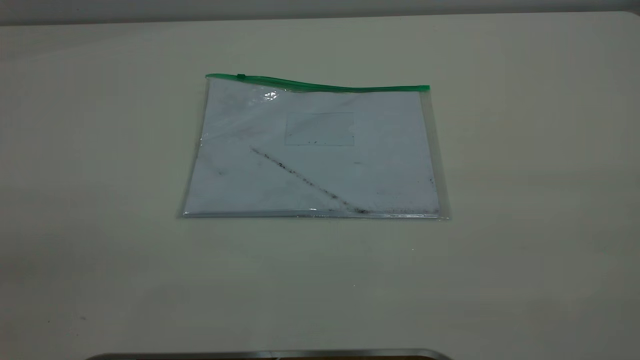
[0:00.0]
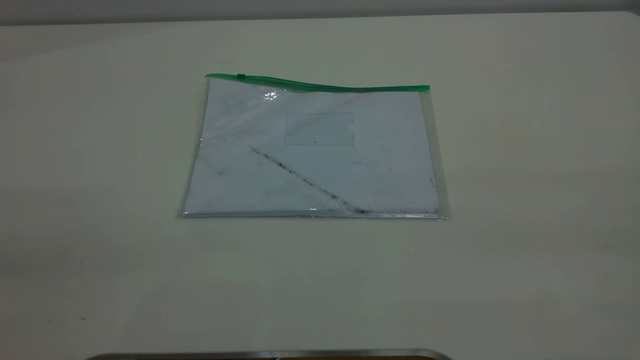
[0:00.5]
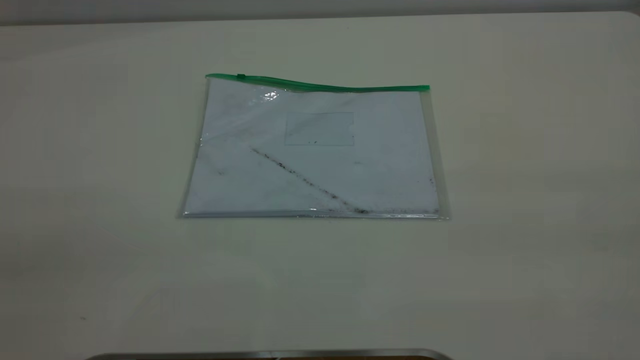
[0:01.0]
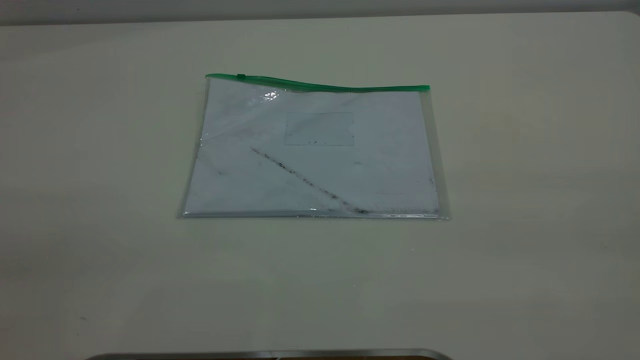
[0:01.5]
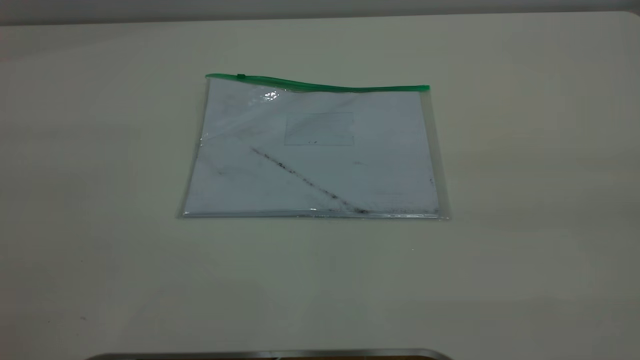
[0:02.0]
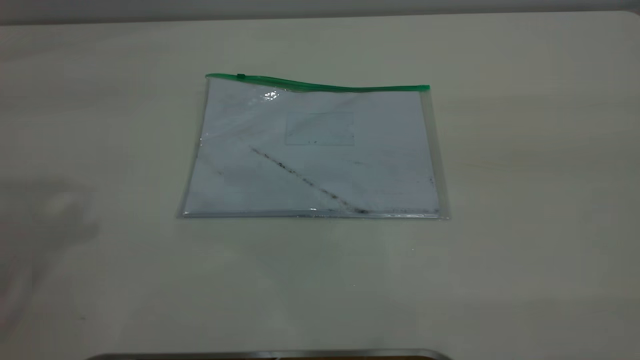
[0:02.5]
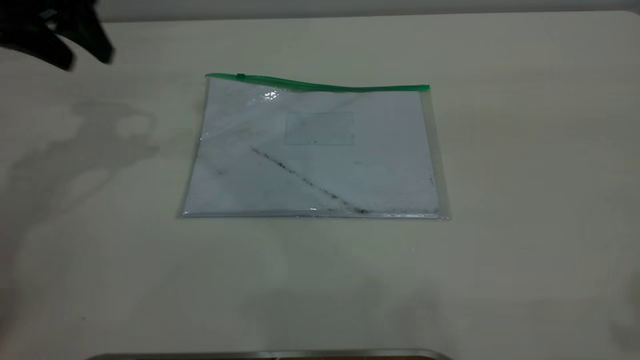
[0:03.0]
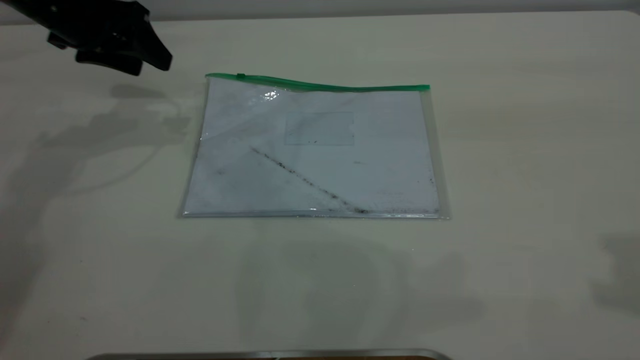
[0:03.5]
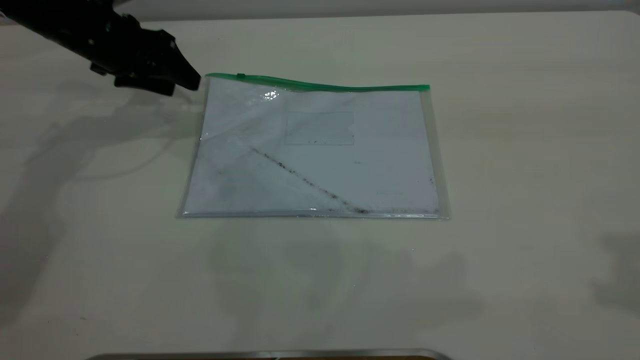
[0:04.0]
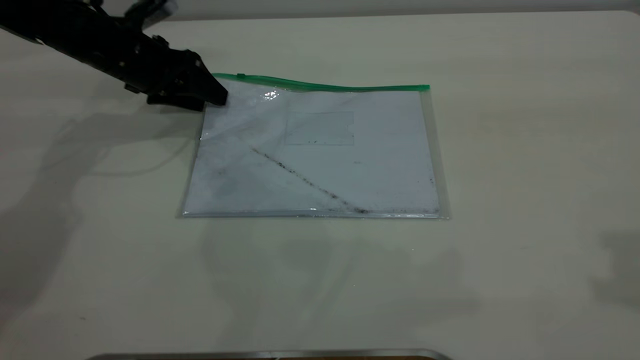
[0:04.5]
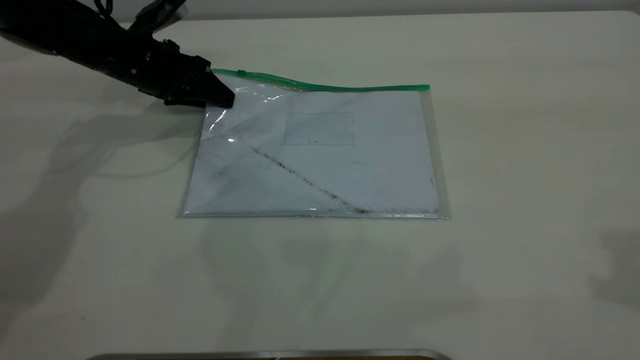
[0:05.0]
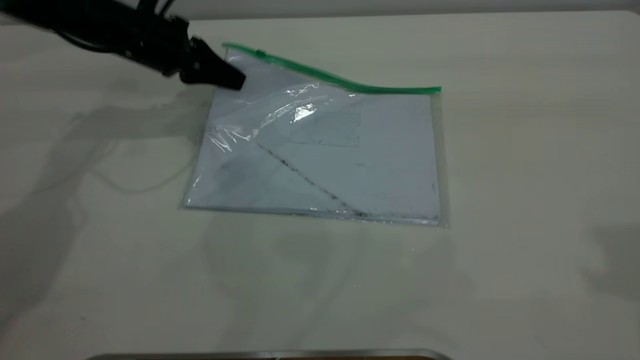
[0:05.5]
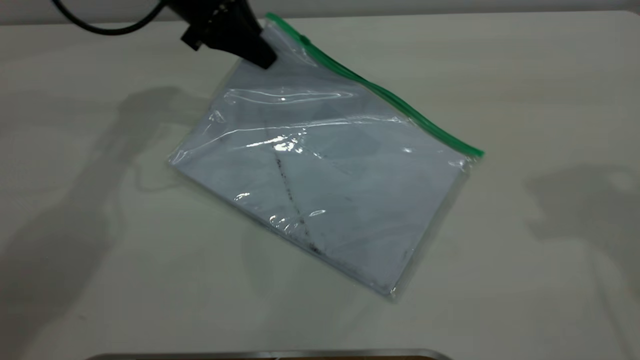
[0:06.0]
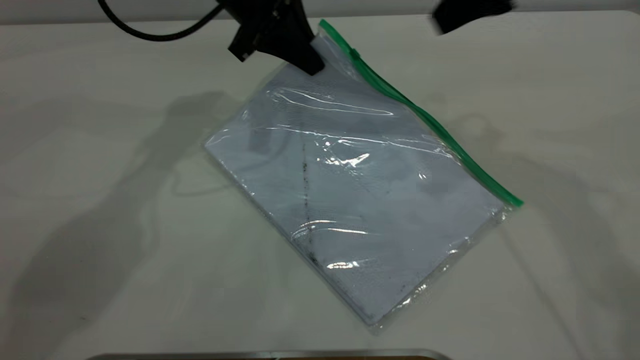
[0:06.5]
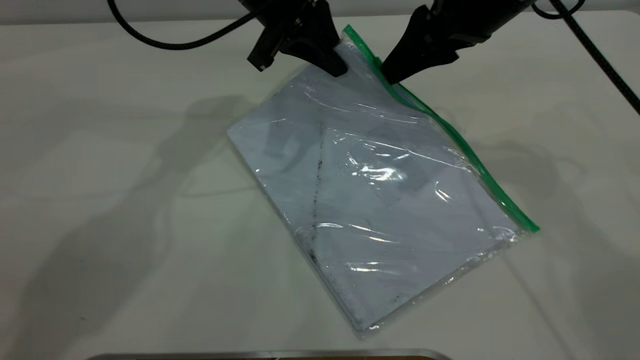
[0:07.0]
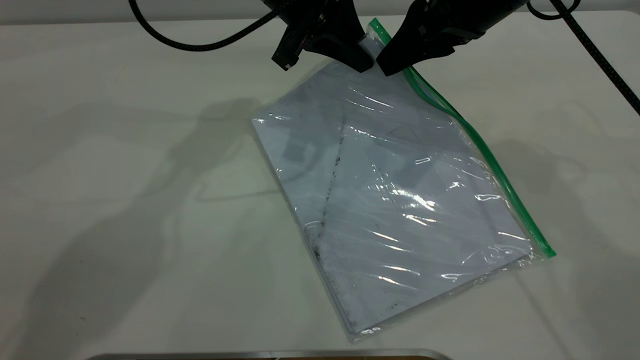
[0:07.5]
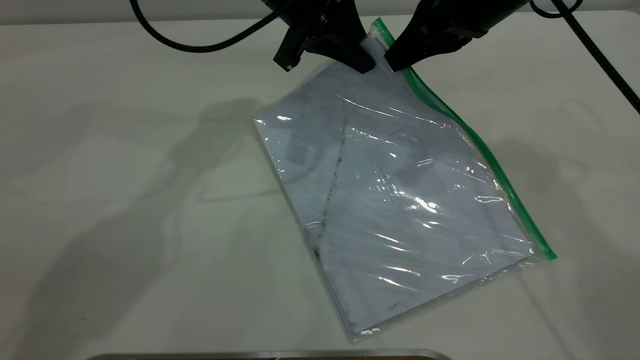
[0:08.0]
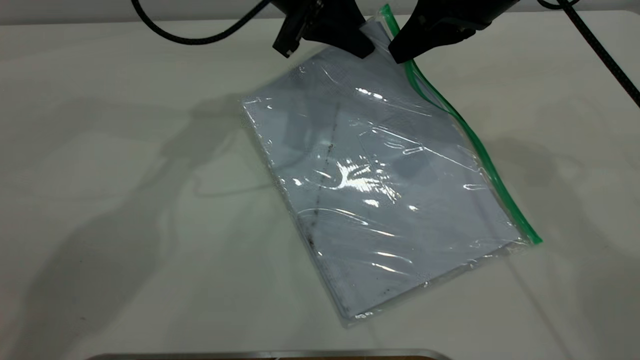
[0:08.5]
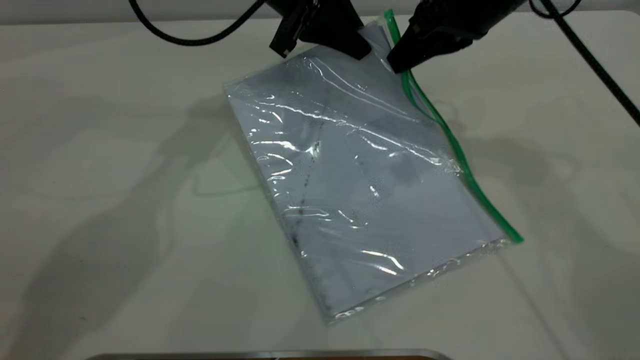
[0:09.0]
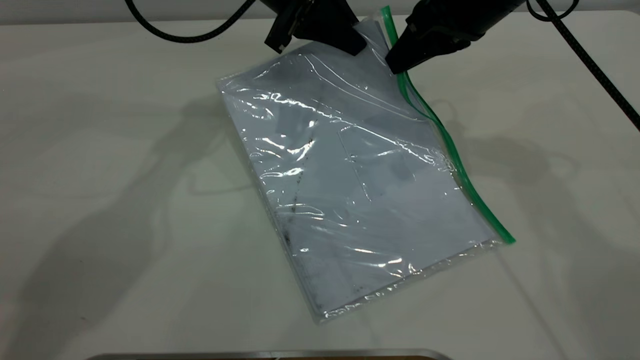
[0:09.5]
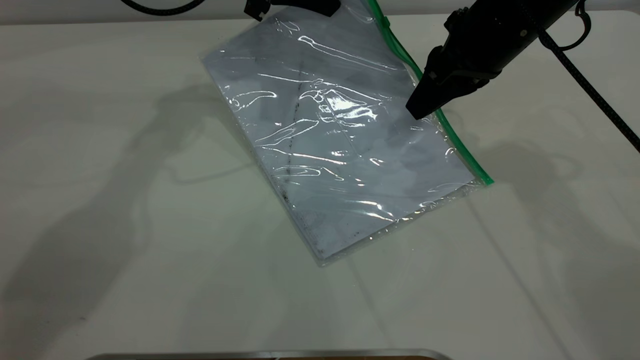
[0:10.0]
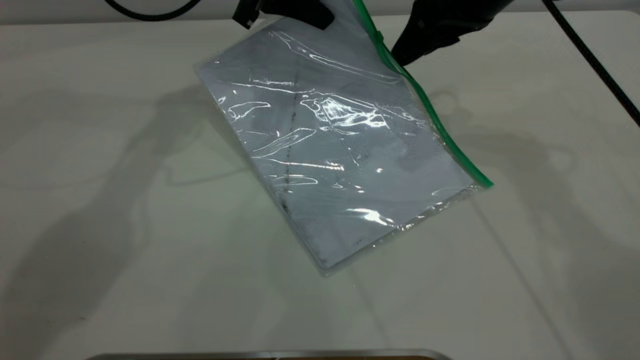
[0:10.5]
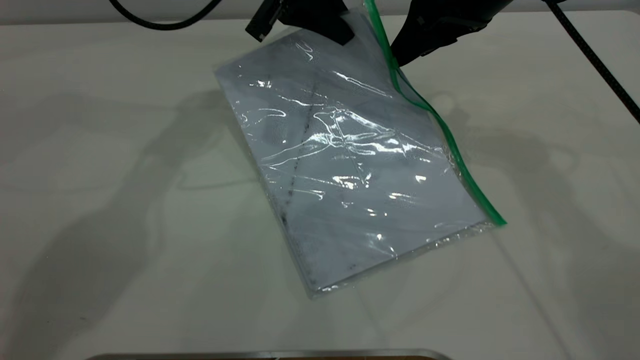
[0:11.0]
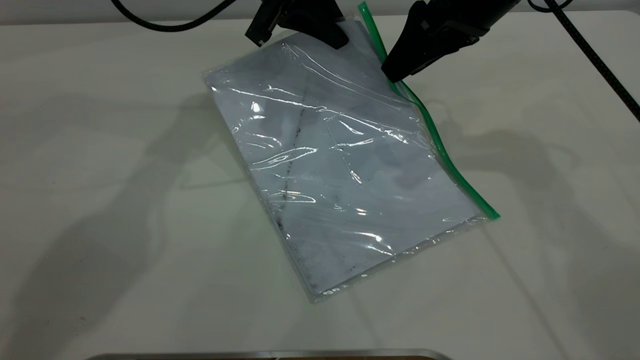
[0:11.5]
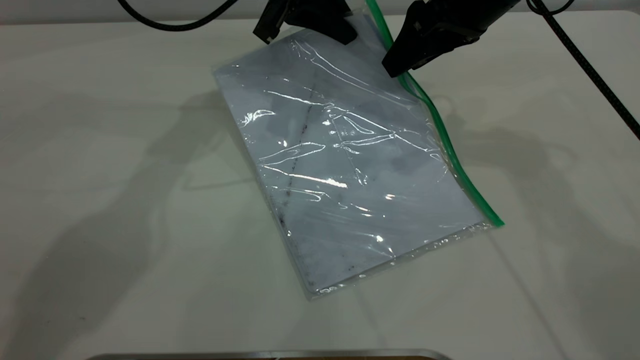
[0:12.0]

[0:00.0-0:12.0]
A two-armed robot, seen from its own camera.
Step, 0:00.0 to 0:05.5: Pick up the transparent plastic bag with the left gripper.
0:02.0 to 0:04.0: The left gripper shifts some 50 cm forward and downward.
0:04.0 to 0:06.0: The right gripper moves forward and downward, roughly 10 cm, while the left gripper is displaced to the right and upward by some 15 cm, and closes its fingers.
0:06.0 to 0:08.0: The right gripper moves downward, to the left and forward, about 20 cm, and closes. The left gripper heads to the right, covering about 10 cm.
0:08.0 to 0:10.0: The left gripper is displaced to the left by some 5 cm.
0:10.0 to 0:12.0: The right gripper opens.

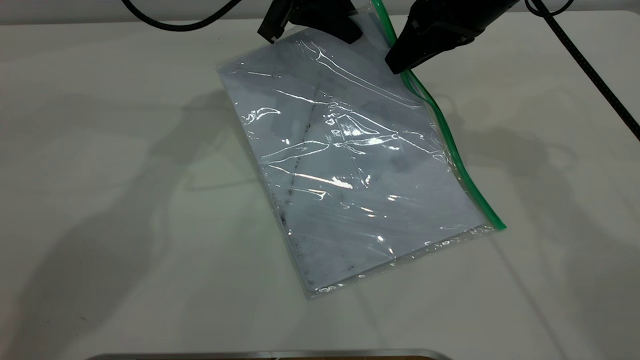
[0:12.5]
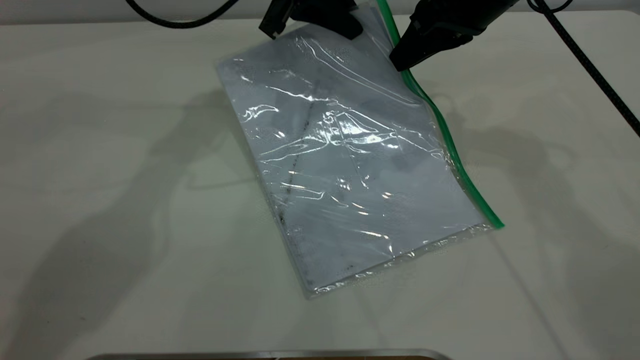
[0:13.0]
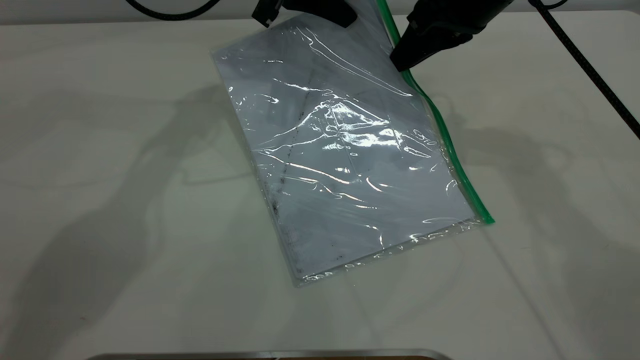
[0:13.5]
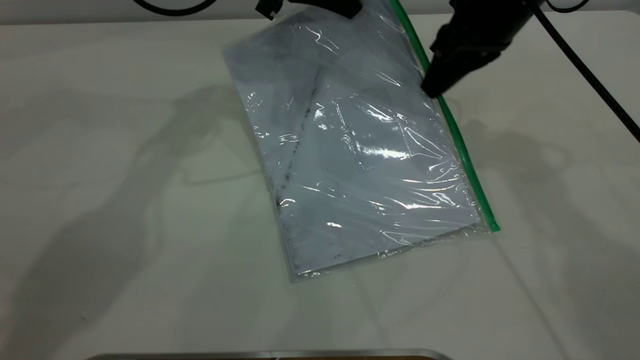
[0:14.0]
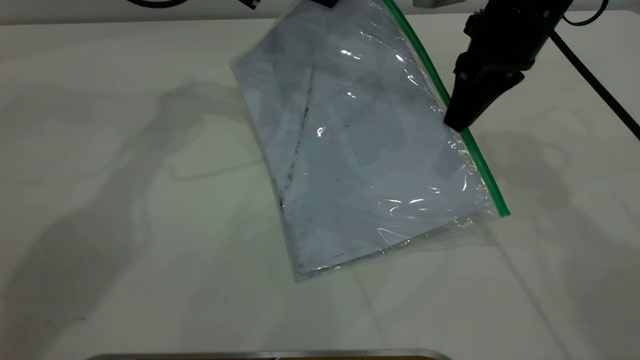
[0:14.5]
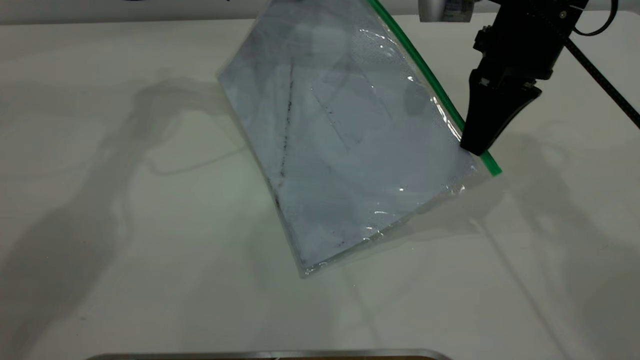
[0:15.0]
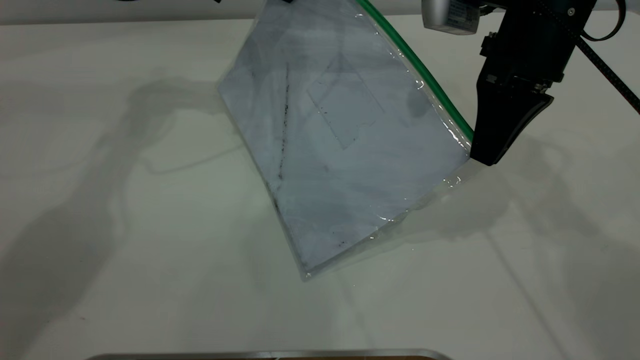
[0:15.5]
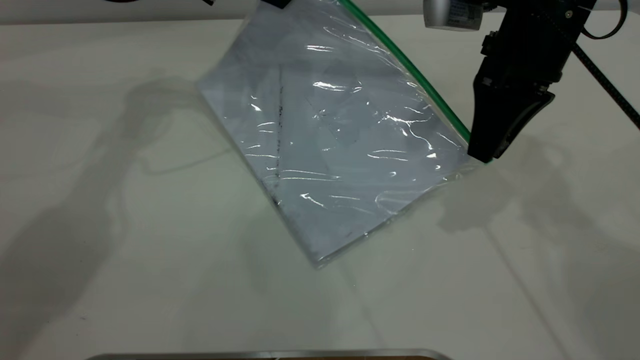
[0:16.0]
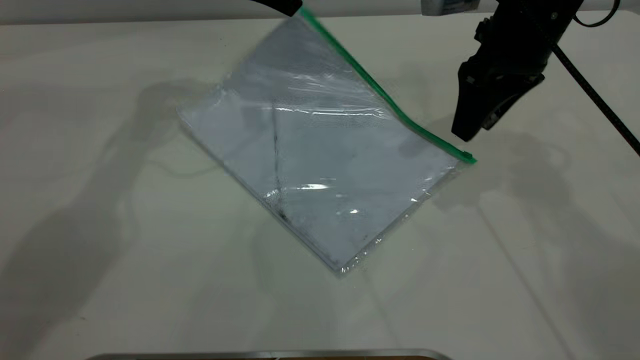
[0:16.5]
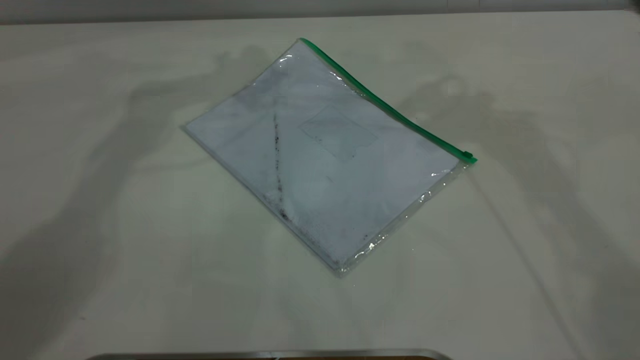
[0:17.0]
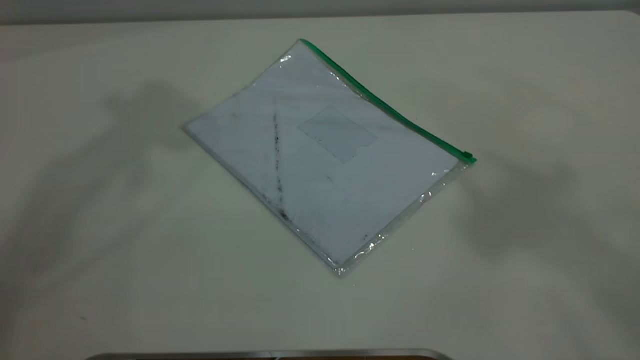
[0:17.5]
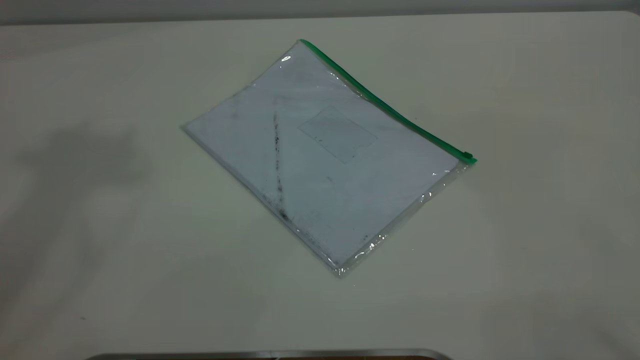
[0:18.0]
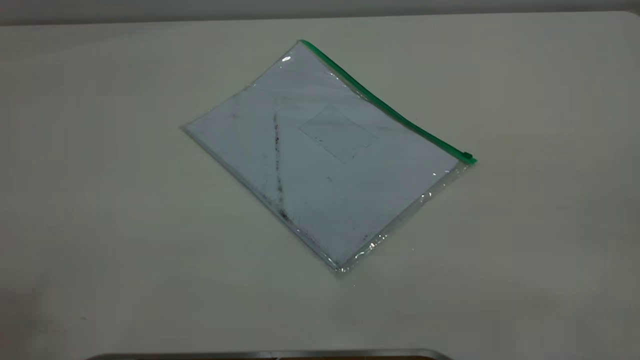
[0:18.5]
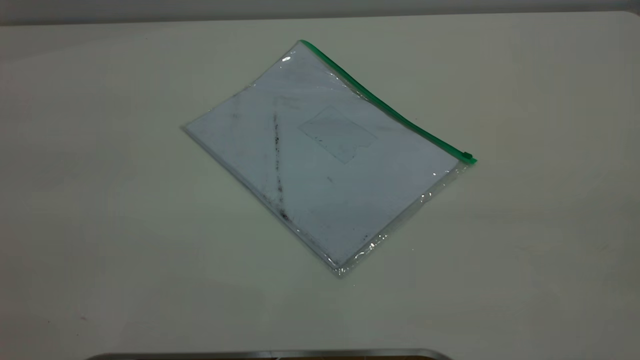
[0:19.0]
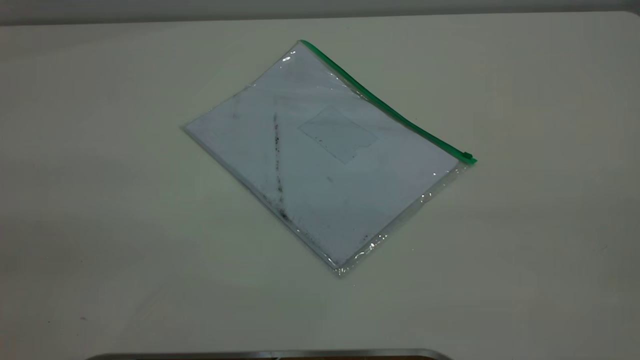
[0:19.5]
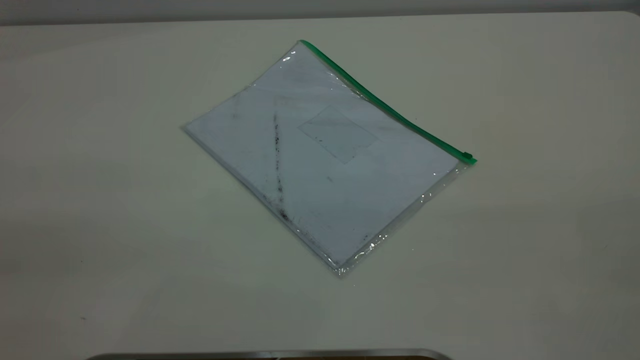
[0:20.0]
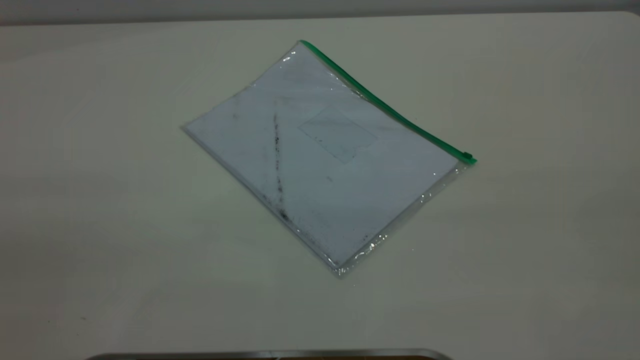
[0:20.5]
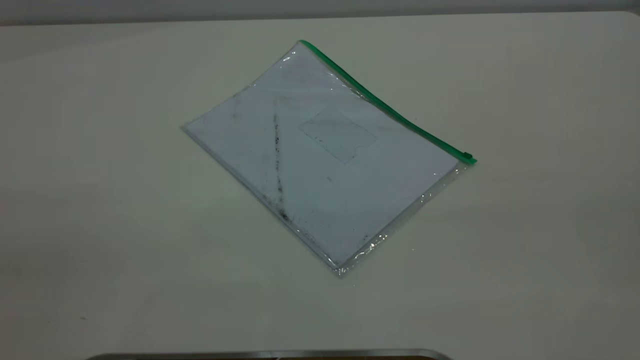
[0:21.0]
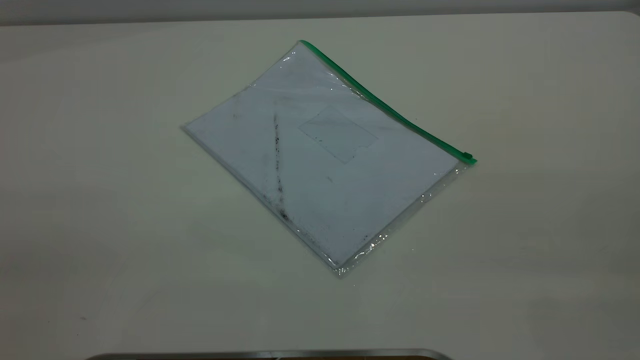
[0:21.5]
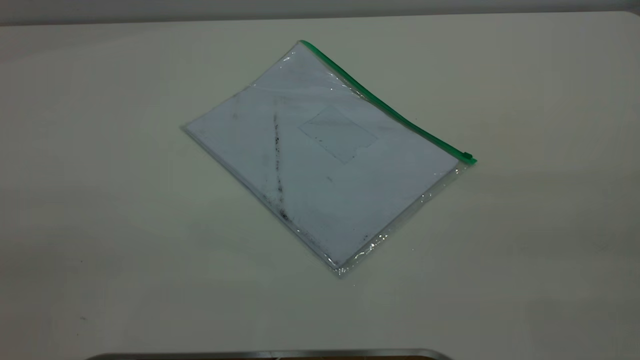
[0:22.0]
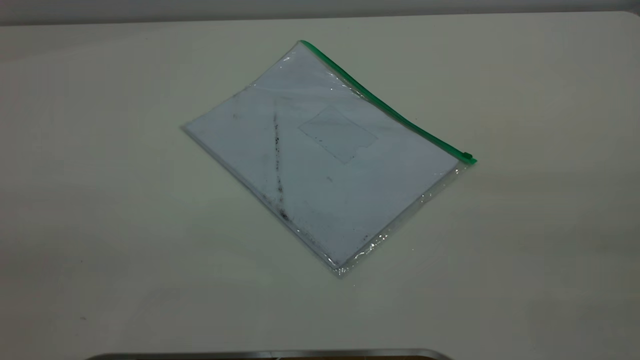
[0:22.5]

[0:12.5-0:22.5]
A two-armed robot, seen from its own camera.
Step, 0:12.5 to 0:16.0: Pulling up the zipper on the transparent plastic bag with the right gripper to close it.
0:14.5 to 0:16.5: The left gripper opens up. Meanwhile the right gripper opens up.
0:16.5 to 0:18.5: Both grippers move backward and upward, roughly 50 cm. The left gripper opens its fingers.
